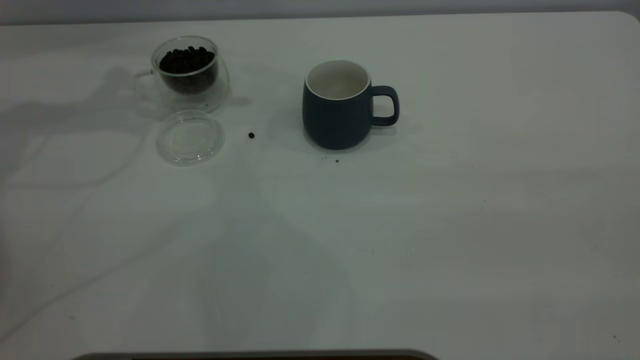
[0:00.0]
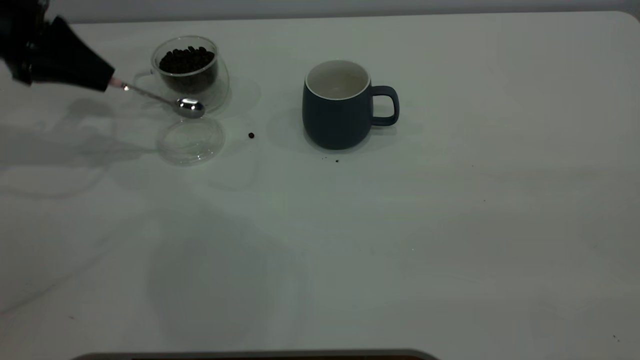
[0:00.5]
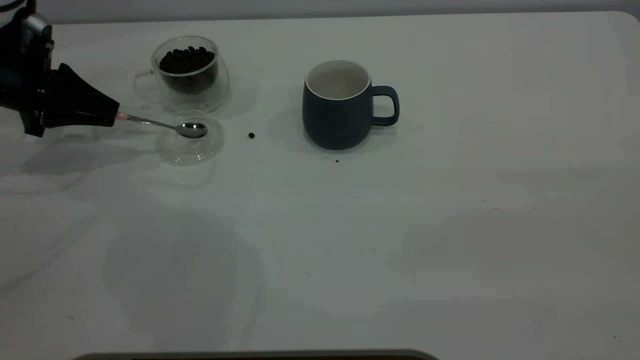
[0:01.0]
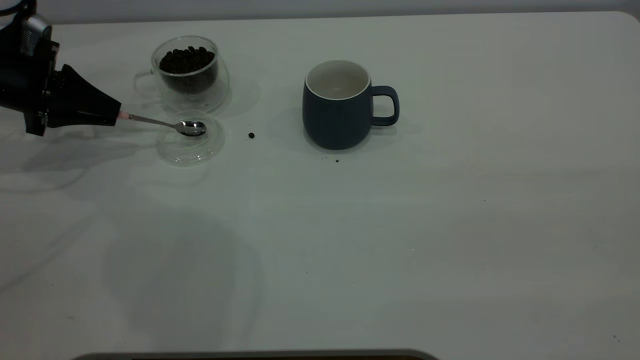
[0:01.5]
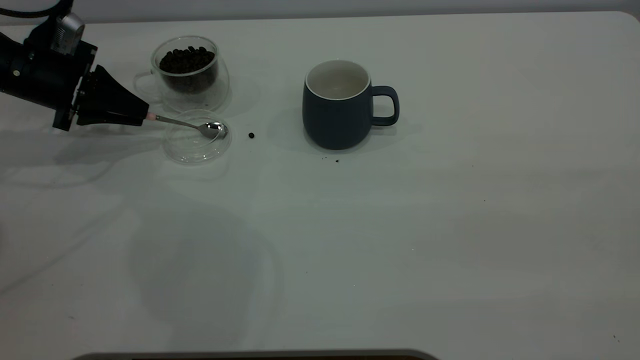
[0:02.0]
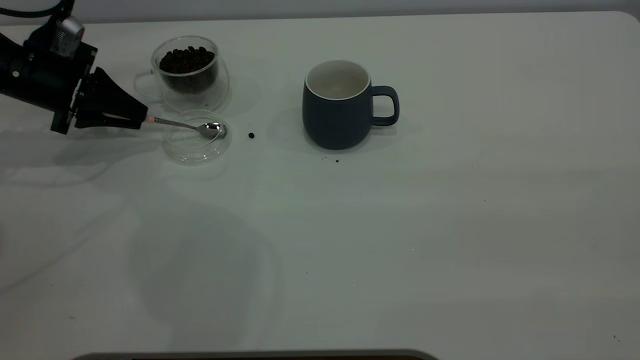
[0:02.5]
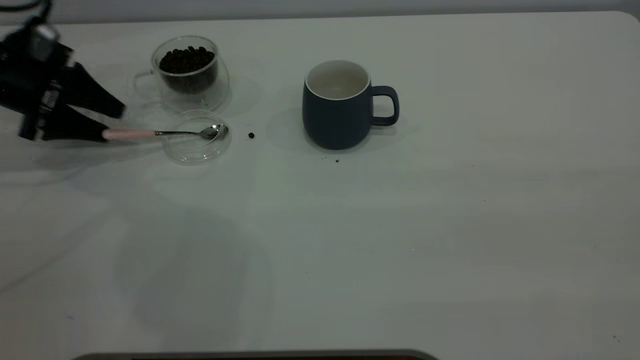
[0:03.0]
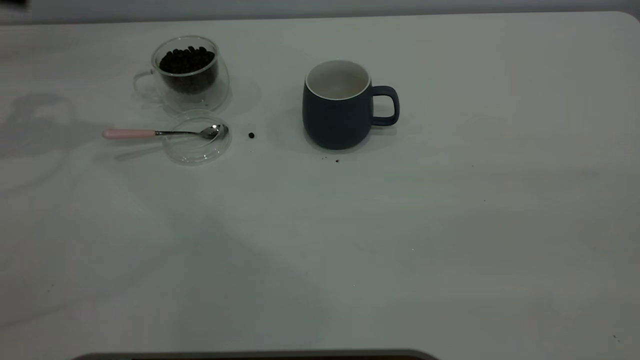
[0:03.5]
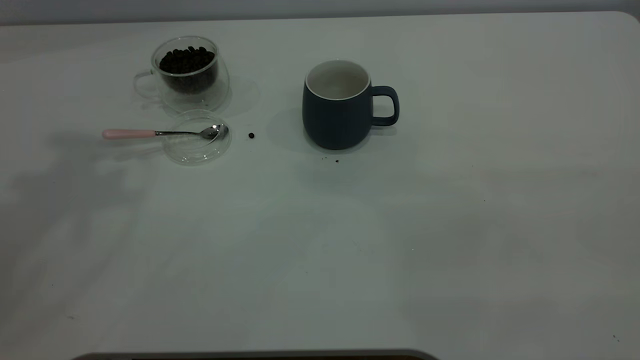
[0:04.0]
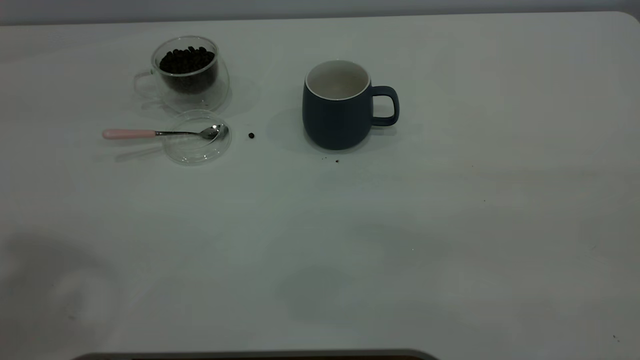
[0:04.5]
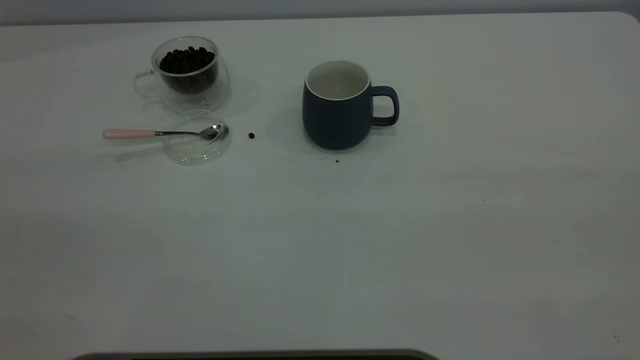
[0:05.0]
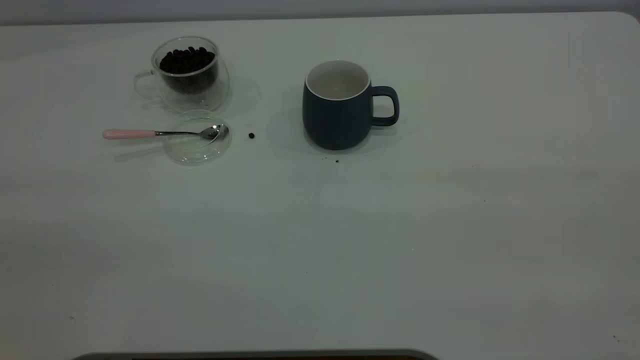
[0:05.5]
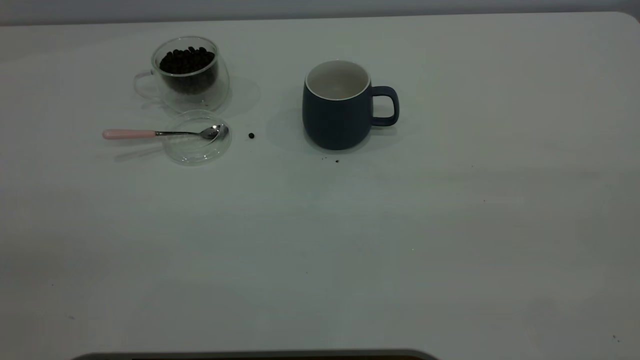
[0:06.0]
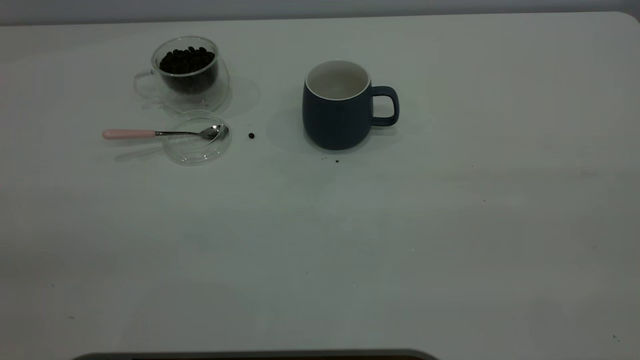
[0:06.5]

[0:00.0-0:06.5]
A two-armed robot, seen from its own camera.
Task of the whole recording: the right gripper place the grey cup in the center of the table, the left gripper take the pink spoon from the cup lid and scoop out the coffee beans from the coffee cup and put them into the grey cup, the left gripper put the spoon back into the cup lid.
Step, 0:00.0 to 0:03.0: Place the spoon back in its original place.
0:00.0 to 0:02.0: The left gripper heads downward, covering some 15 cm.
0:02.0 to 0:04.5: The left gripper travels upward and backward by about 40 cm, and opens its fingers.
